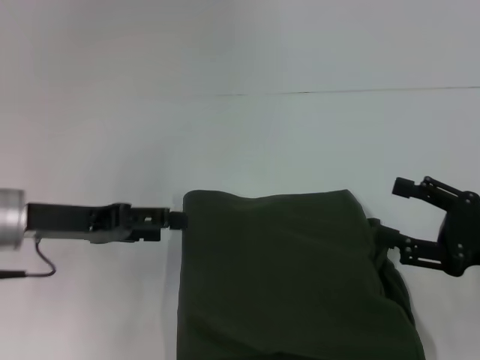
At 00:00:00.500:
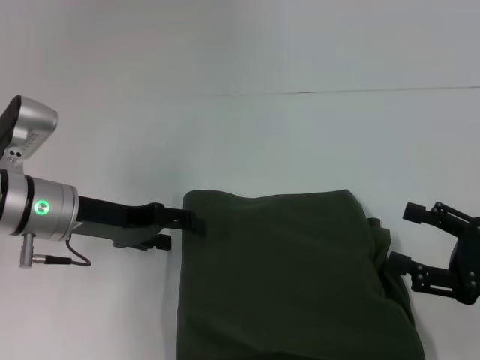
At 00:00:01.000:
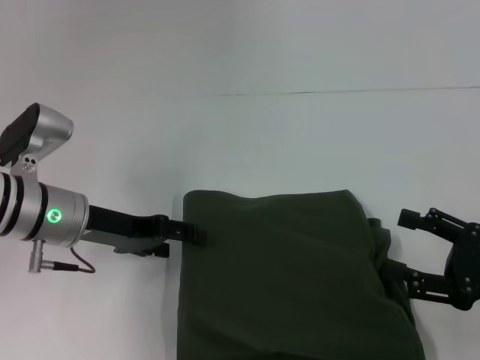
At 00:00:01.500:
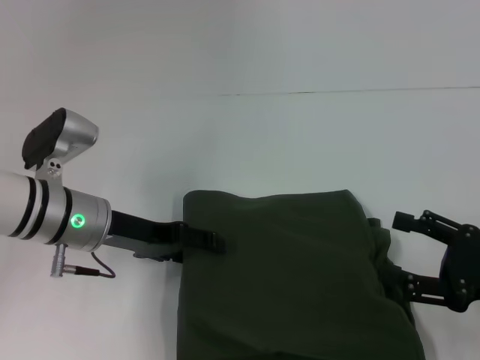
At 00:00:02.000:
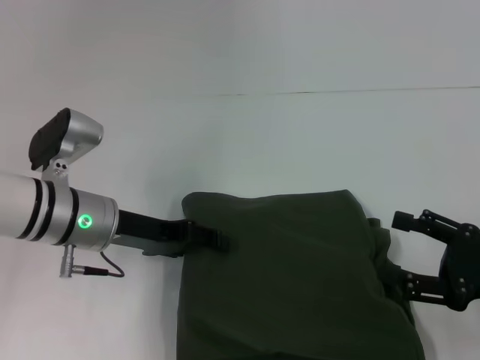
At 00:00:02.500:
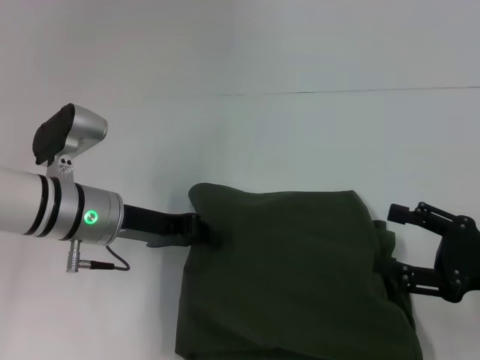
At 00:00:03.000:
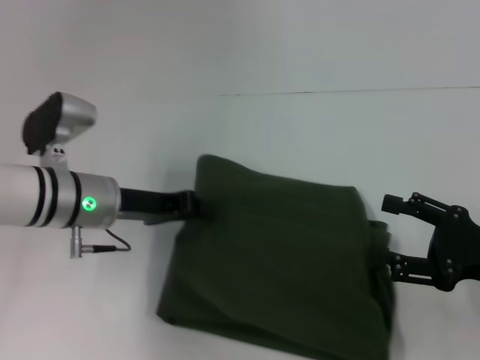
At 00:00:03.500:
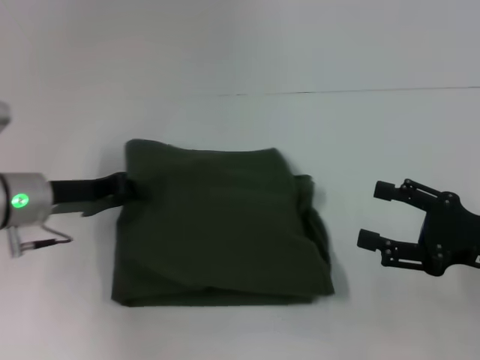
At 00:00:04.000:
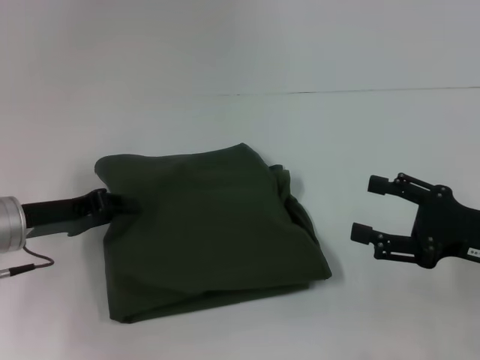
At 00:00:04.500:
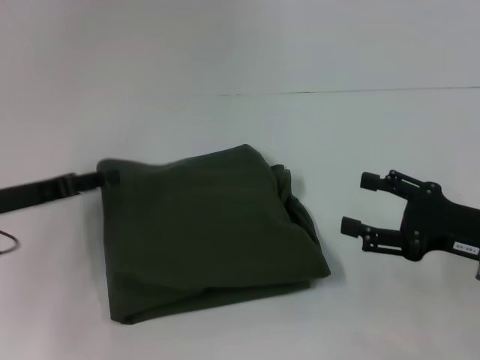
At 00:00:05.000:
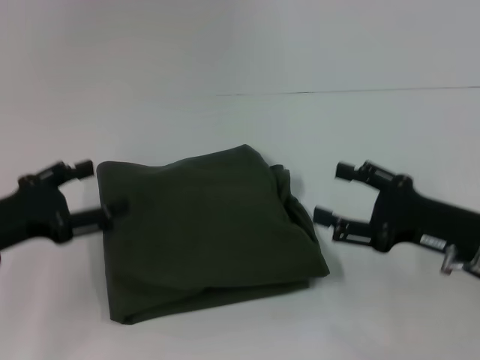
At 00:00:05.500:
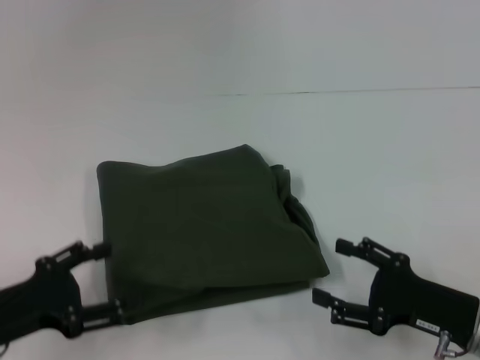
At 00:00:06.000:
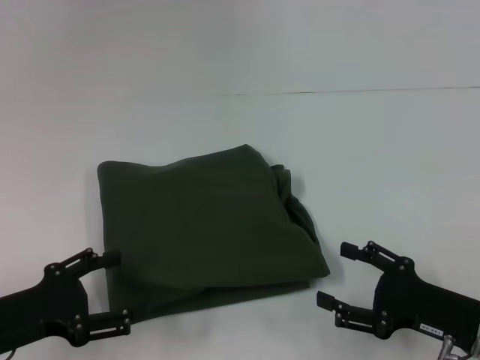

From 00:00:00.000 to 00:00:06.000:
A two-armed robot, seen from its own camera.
From 00:00:00.000 to 00:00:02.000: The left gripper heads to the right, covering roughly 5 cm.
From 00:00:02.000 to 00:00:04.000: The left gripper travels to the left by roughly 10 cm, and closes up.
From 00:00:04.000 to 00:00:06.000: The left gripper heads backward, covering about 10 cm, and opens. Meanwhile the right gripper shifts about 5 cm downward.
